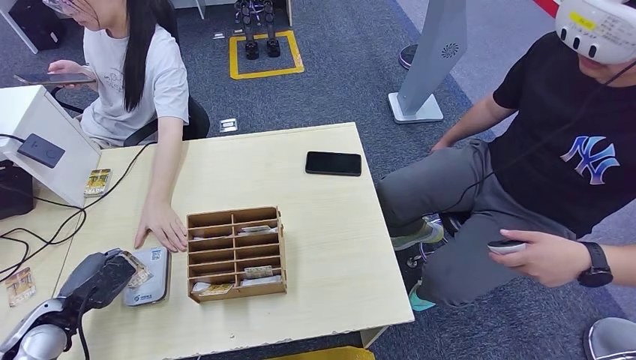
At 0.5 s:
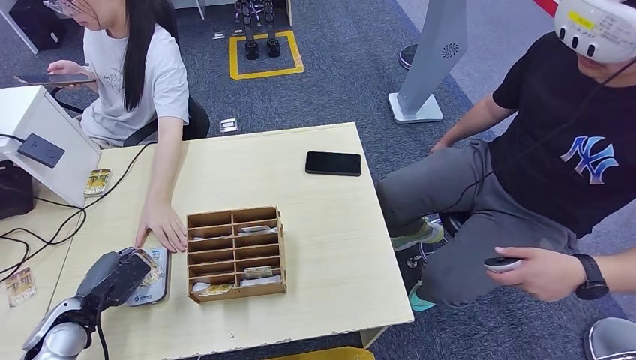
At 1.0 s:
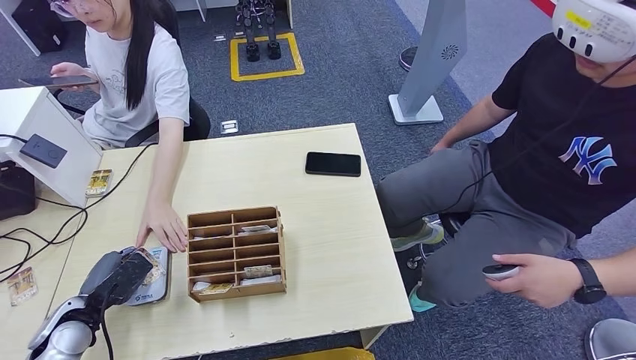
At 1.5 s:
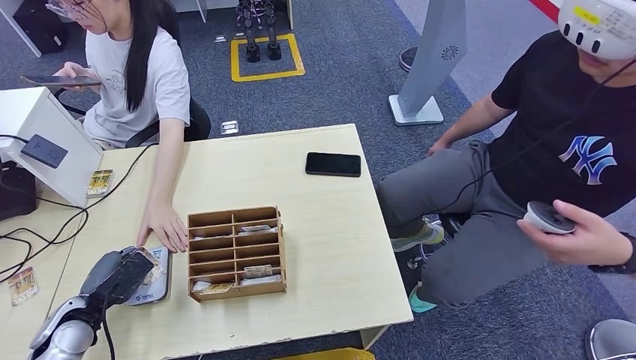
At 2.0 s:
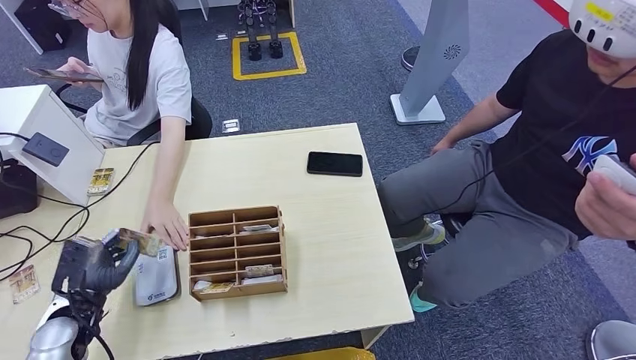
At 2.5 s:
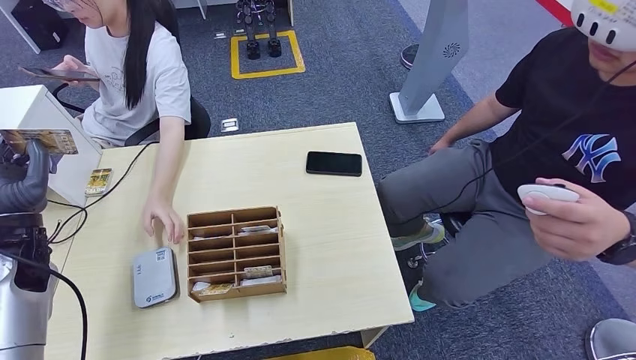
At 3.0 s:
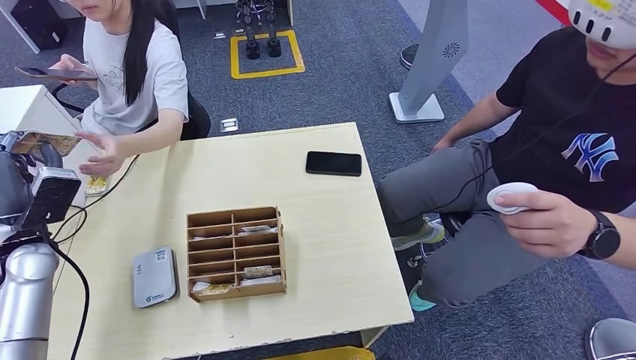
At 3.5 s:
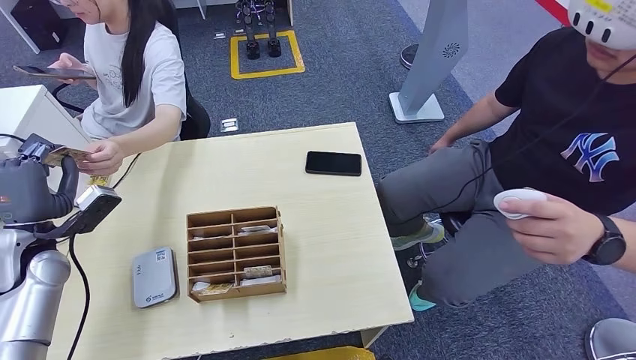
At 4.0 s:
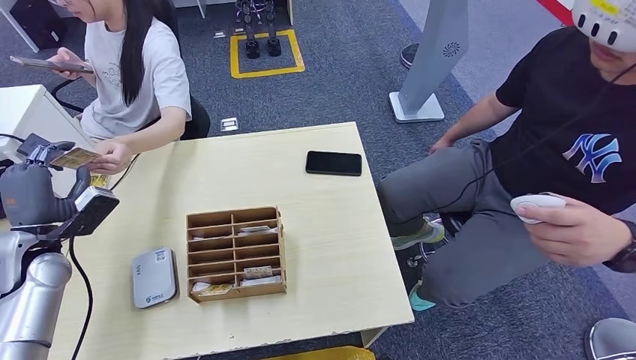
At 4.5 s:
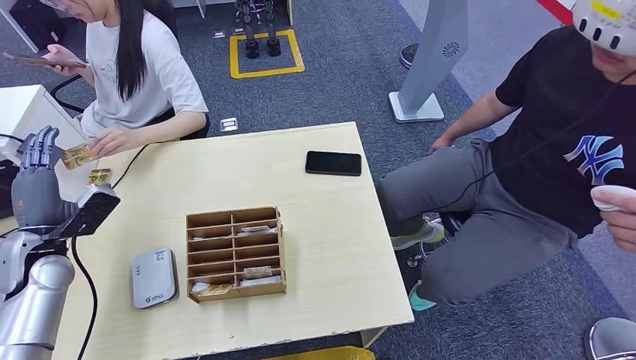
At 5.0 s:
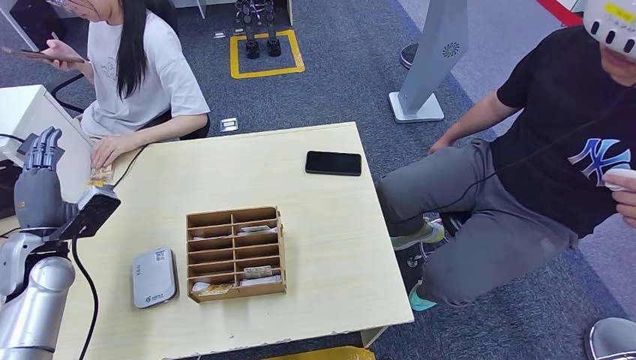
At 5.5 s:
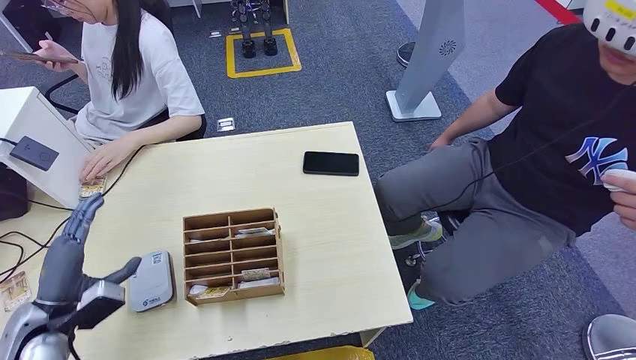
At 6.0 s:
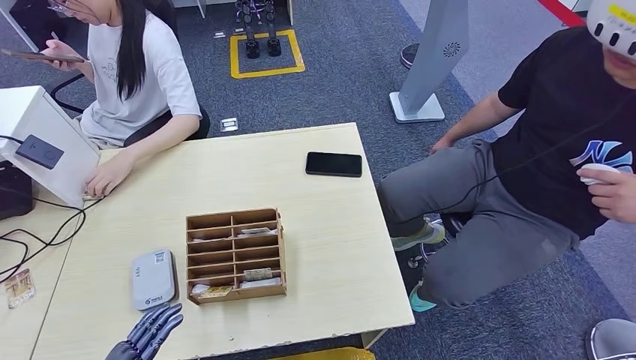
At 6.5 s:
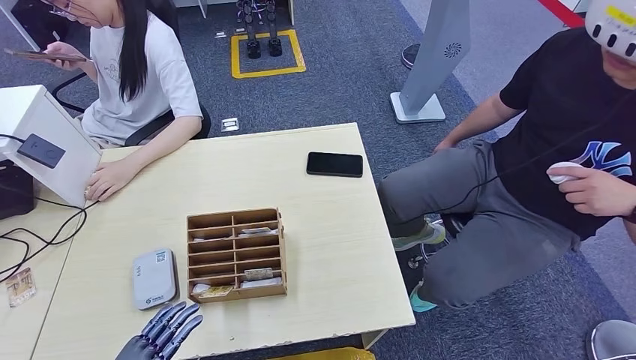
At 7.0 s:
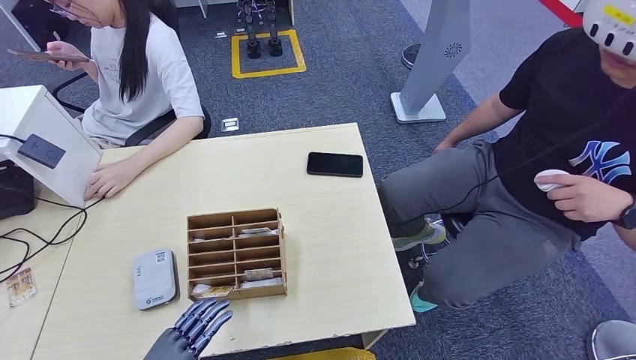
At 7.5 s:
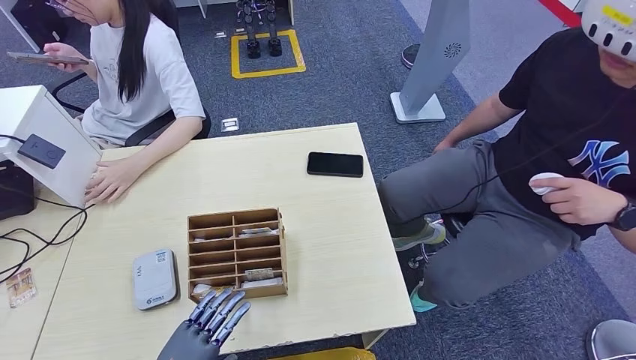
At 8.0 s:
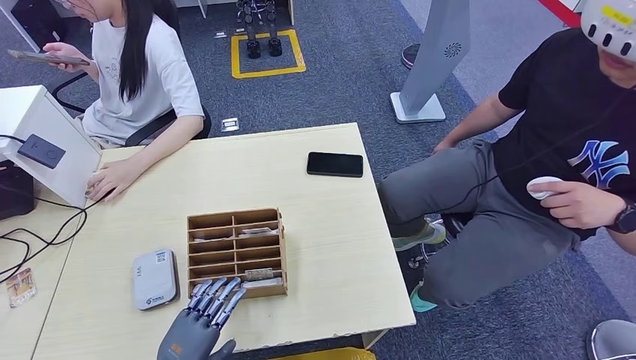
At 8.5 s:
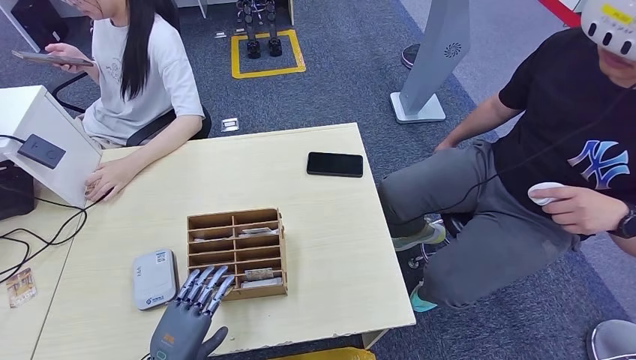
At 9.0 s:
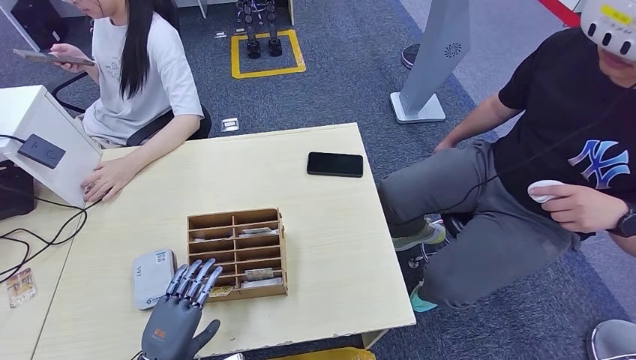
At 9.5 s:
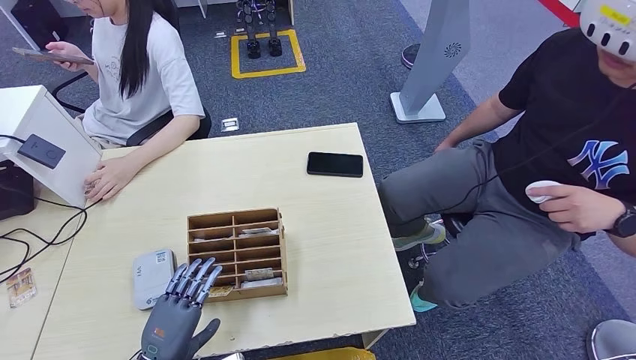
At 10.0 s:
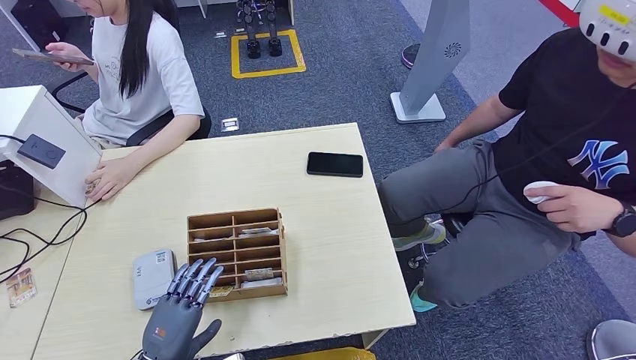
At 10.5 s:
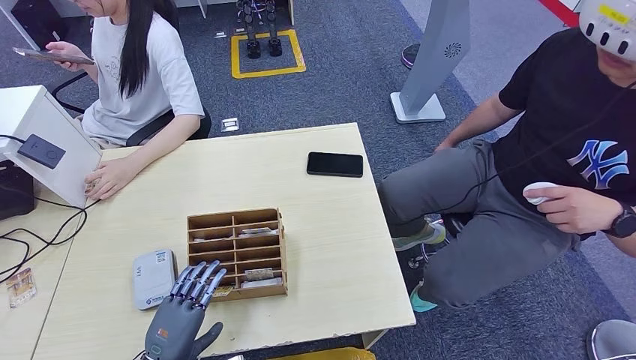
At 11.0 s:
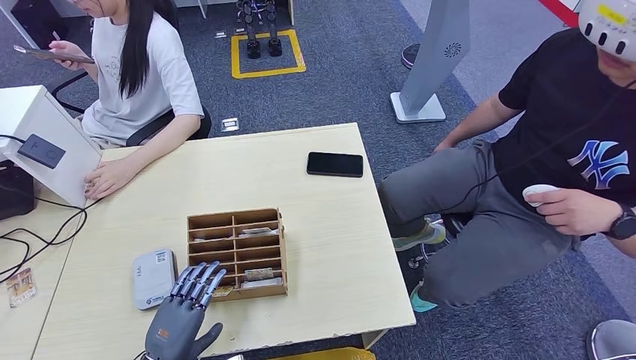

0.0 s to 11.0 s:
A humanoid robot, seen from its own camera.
Step, 3.0 to 4.0 s: Hand the ID card to the person.
7.5 to 9.0 s: The hands move only a little.
9.0 to 11.0 s: Both hands stay put.

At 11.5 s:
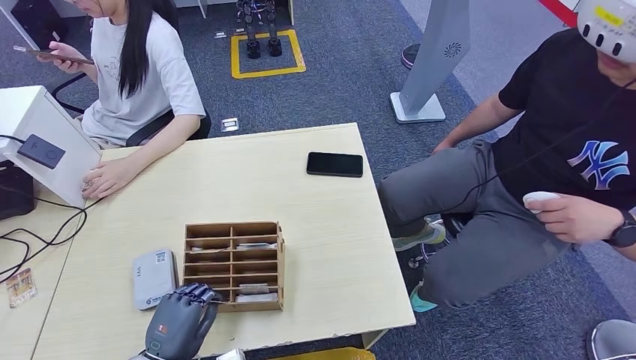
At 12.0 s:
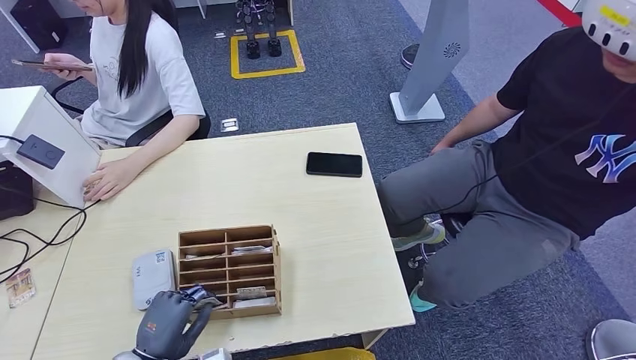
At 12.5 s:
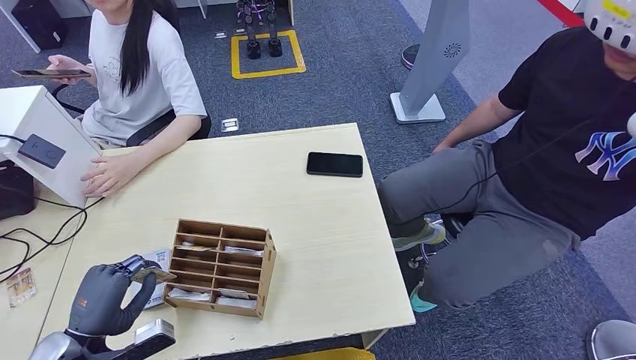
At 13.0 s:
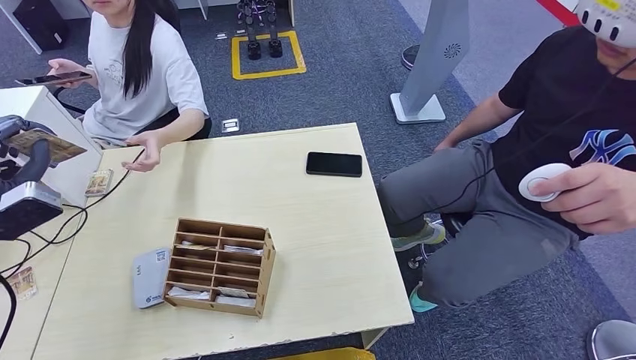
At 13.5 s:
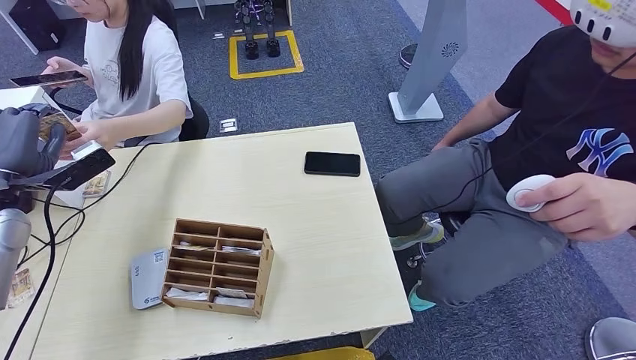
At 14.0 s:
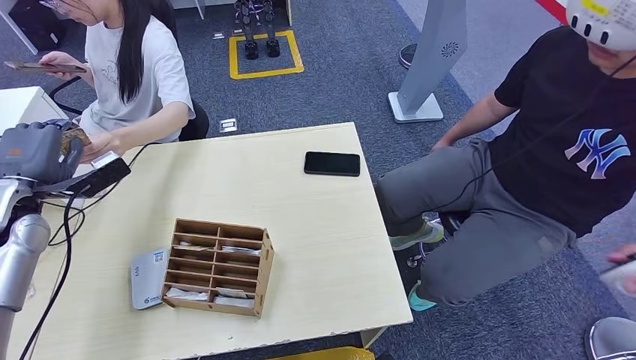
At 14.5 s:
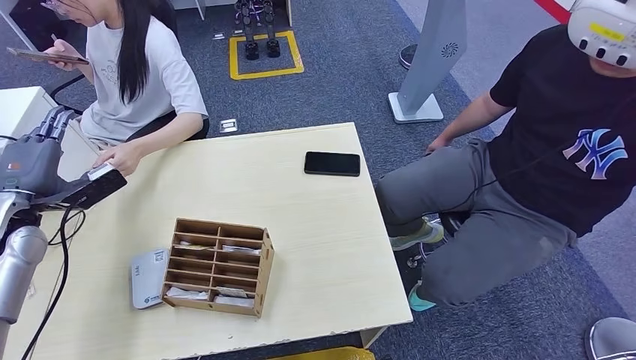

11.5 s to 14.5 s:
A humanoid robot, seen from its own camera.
Step, 13.0 to 14.5 s: Hand the room key to the person.
11.5 to 13.0 s: The left hand goes about 35 cm upward, to the left and forward.
13.0 to 14.5 s: The left hand travels forward and downward by some 10 cm.
